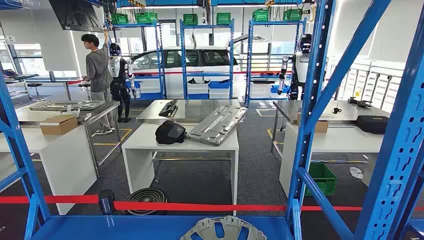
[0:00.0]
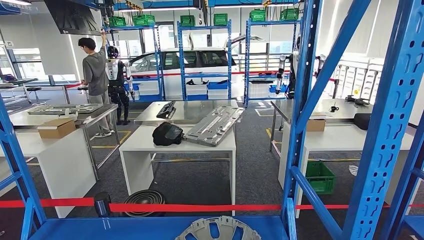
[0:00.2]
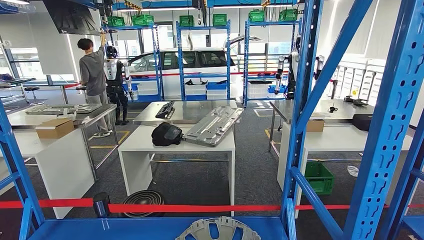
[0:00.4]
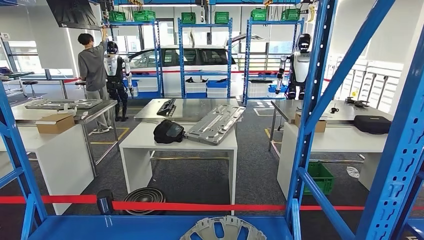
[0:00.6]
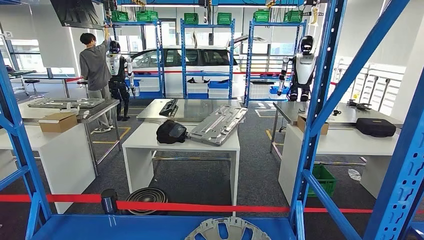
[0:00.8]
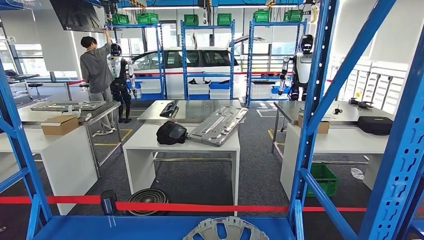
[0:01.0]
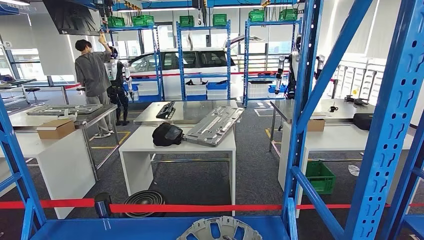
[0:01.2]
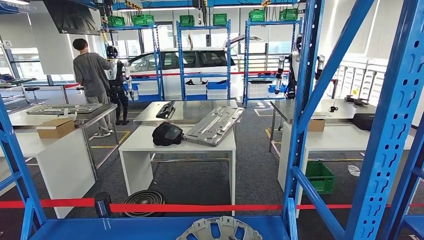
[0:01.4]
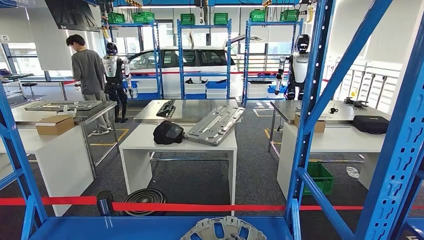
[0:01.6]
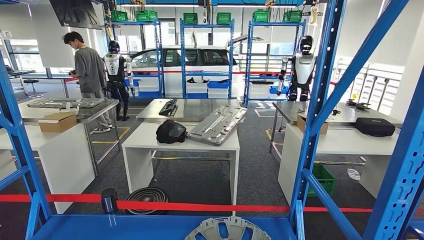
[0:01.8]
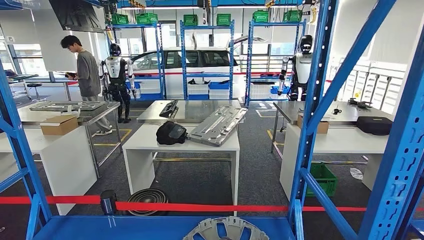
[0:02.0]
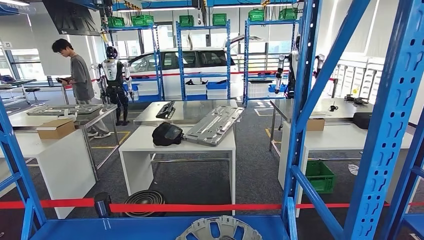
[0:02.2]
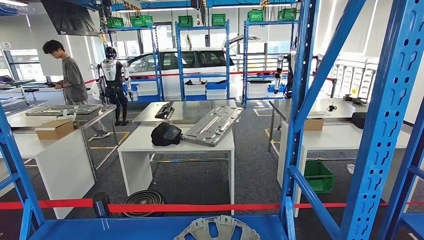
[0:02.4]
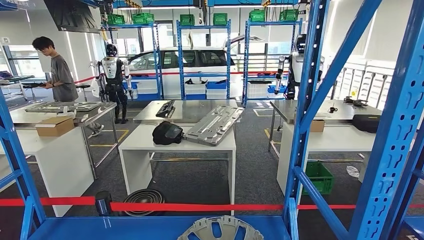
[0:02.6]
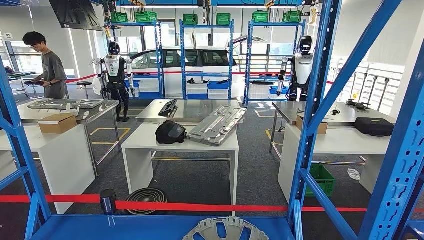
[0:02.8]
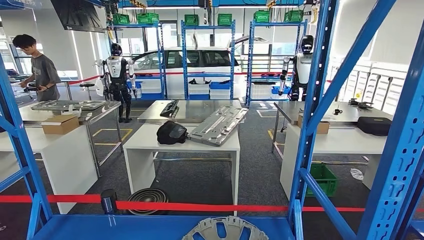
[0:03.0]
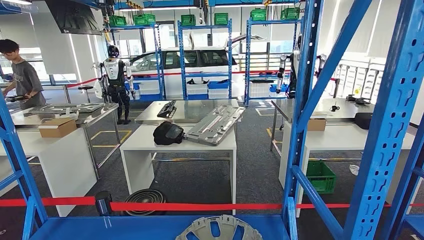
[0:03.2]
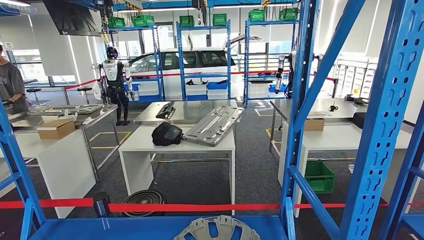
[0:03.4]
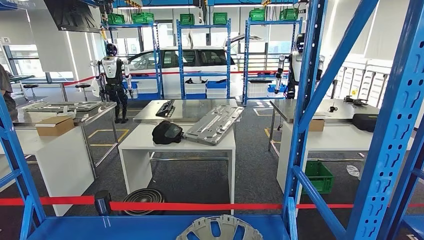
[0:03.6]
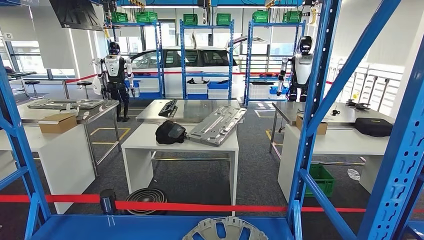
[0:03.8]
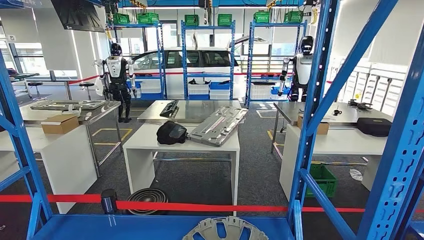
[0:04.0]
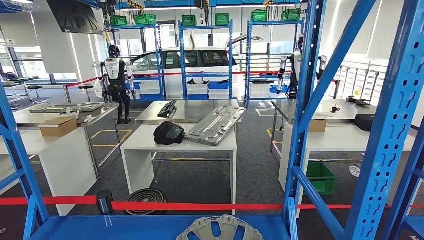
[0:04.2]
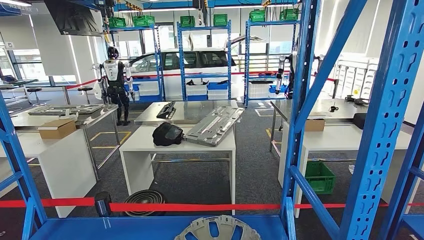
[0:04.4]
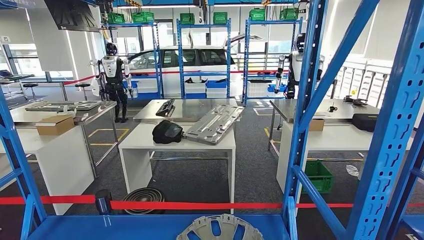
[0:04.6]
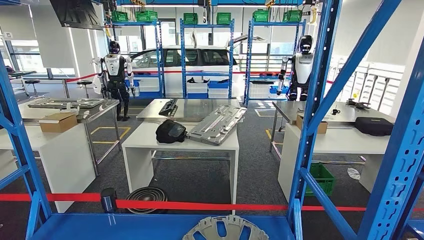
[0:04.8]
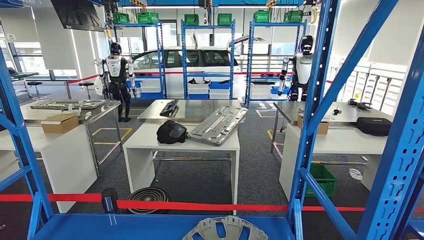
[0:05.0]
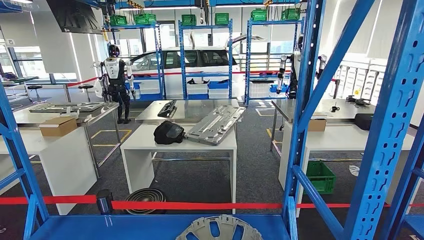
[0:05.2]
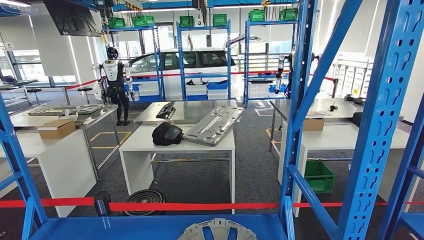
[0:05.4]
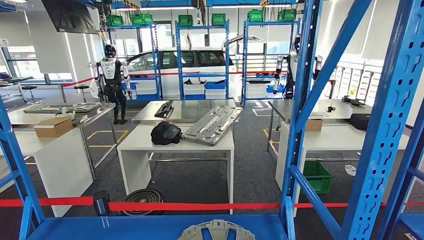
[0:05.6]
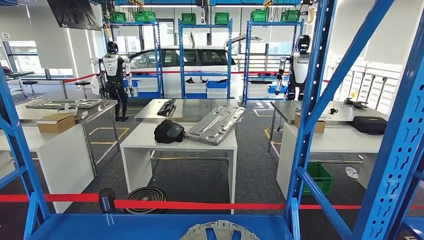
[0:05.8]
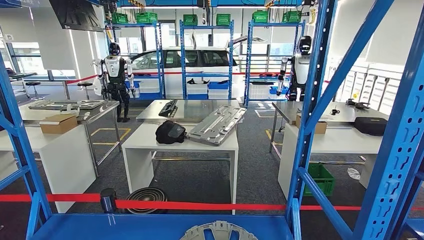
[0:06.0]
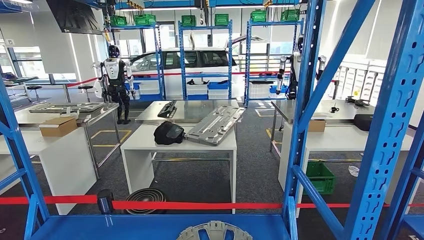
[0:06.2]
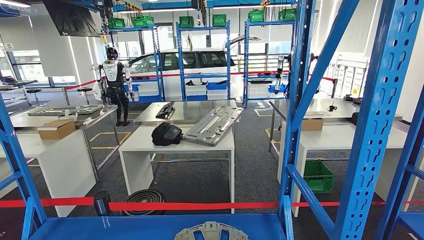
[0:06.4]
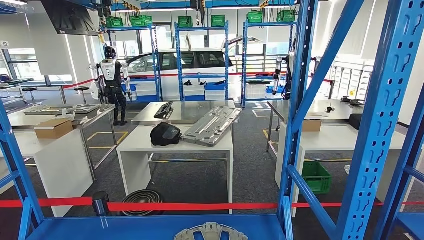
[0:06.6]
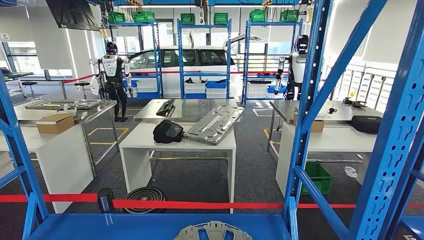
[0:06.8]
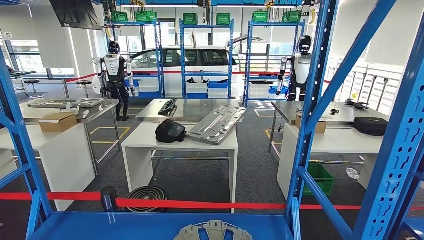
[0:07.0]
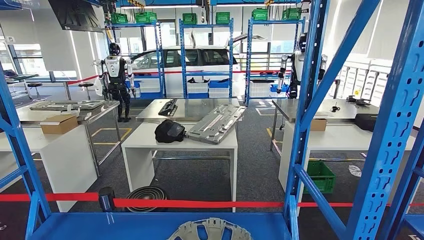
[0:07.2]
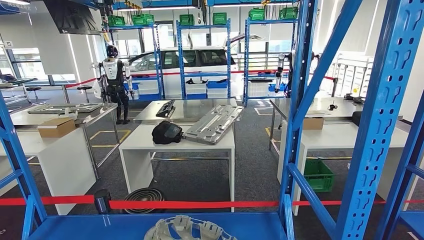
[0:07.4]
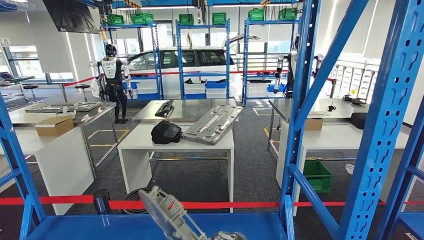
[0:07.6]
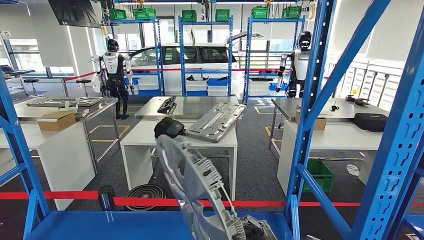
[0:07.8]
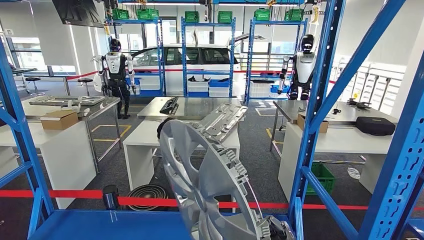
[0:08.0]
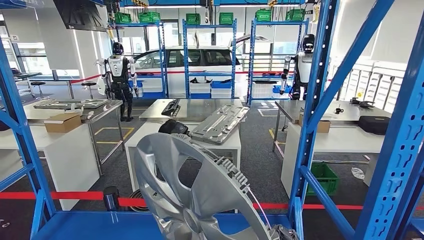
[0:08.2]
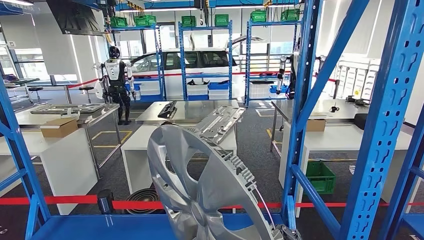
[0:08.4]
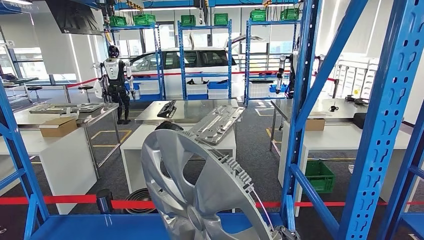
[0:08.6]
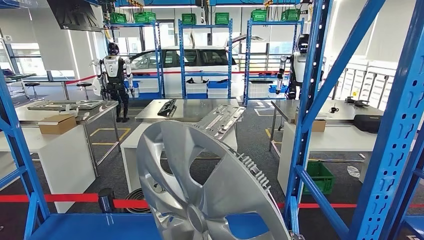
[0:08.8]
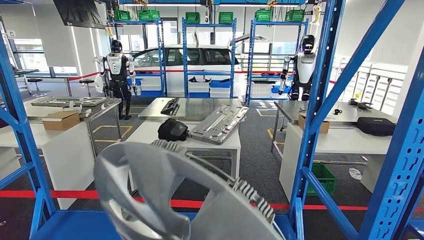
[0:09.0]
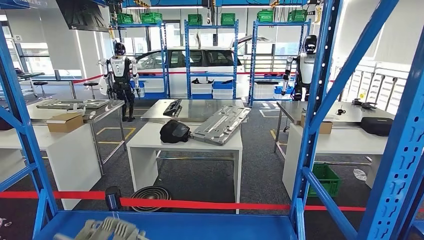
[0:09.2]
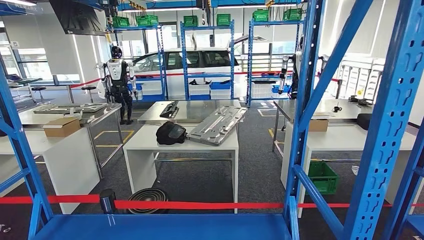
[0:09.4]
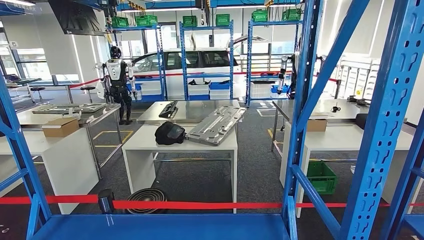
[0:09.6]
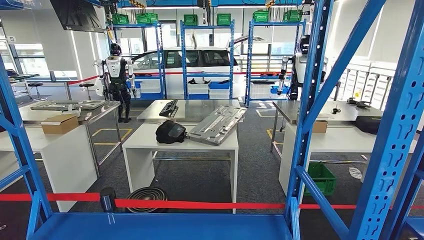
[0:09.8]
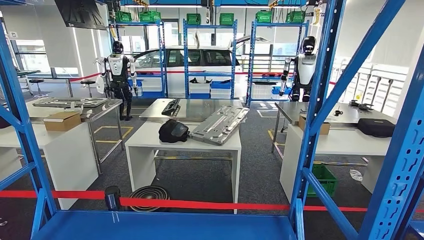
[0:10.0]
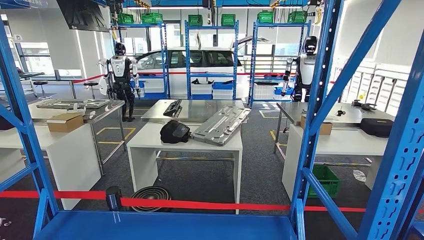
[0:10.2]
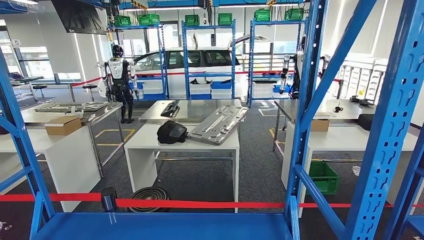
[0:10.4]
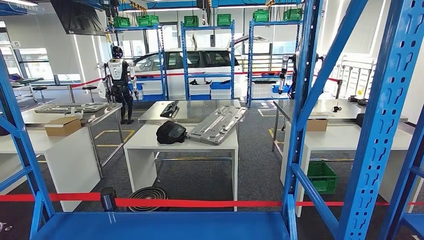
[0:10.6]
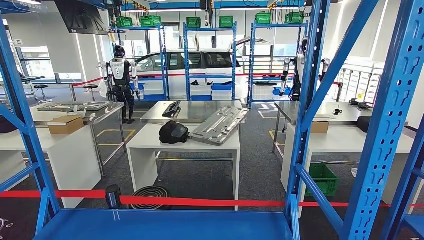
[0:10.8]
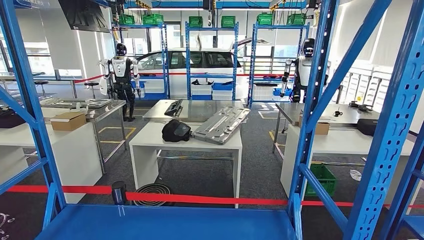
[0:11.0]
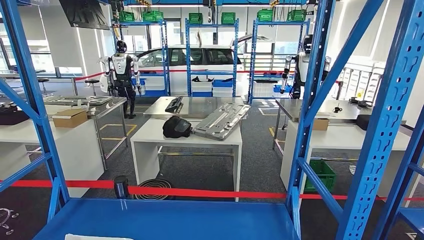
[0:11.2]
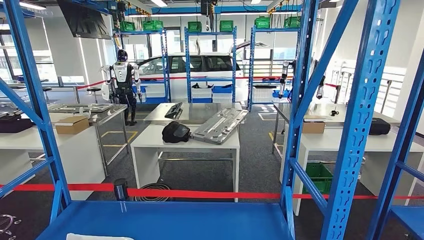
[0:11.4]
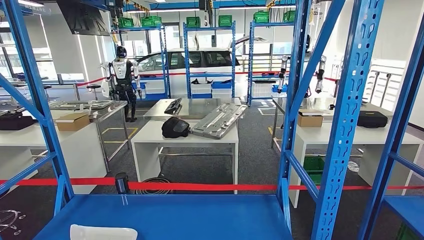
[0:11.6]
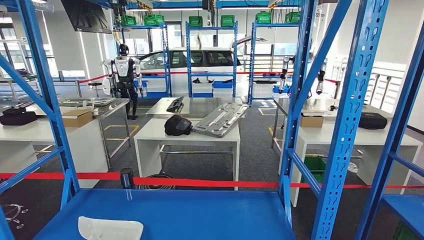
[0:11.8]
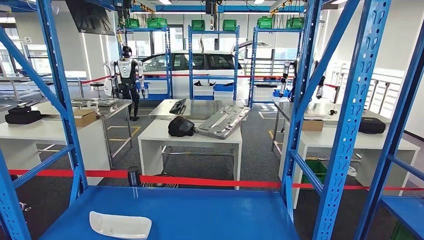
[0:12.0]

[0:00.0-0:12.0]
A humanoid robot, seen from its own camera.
Step, 0:00.0 to 0:07.6: Pick up the small component from the shelf.

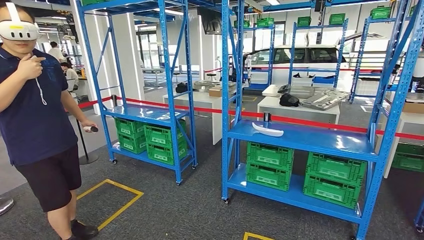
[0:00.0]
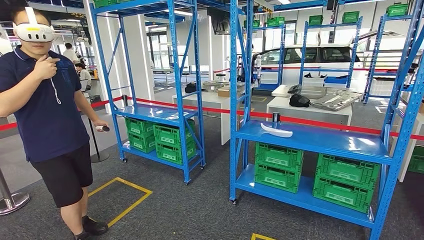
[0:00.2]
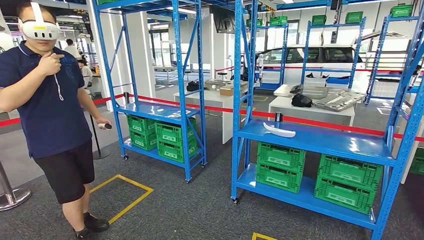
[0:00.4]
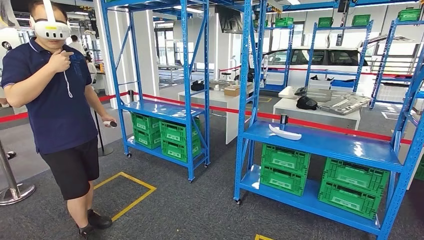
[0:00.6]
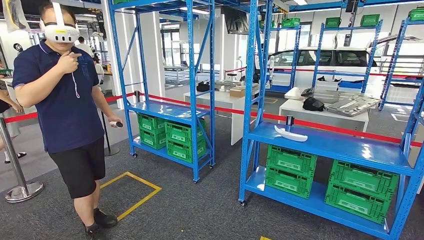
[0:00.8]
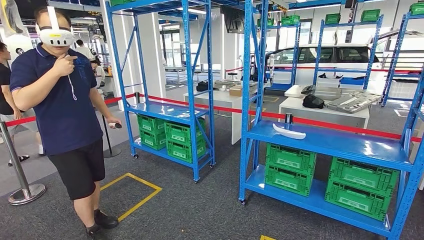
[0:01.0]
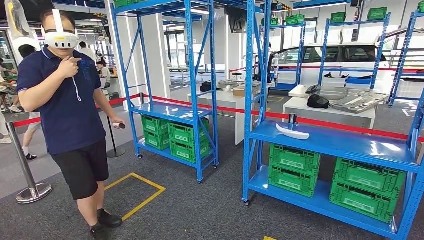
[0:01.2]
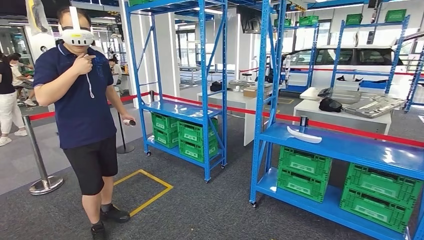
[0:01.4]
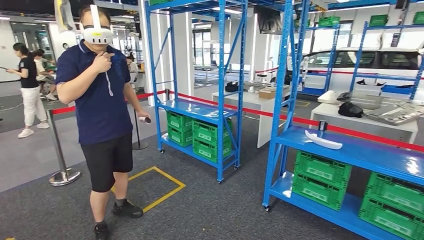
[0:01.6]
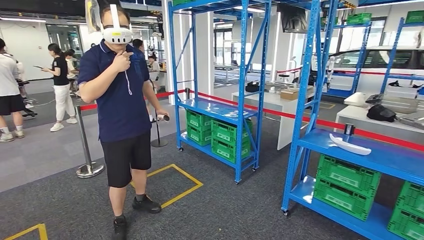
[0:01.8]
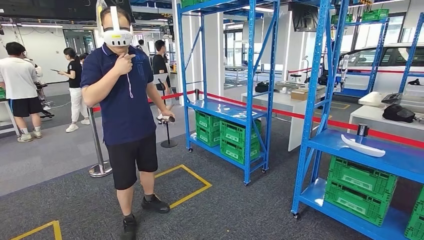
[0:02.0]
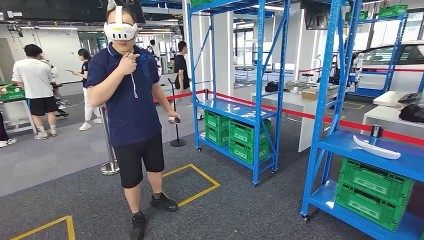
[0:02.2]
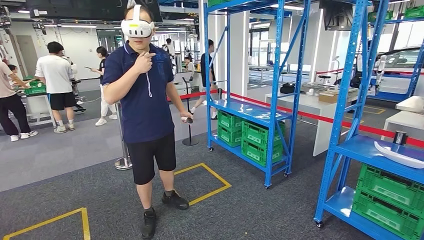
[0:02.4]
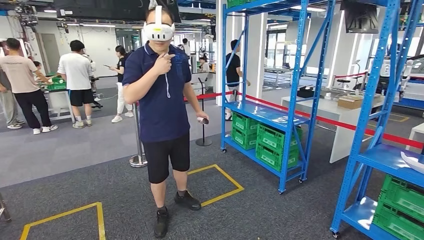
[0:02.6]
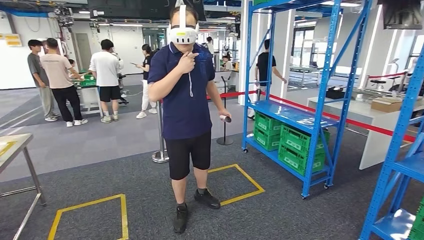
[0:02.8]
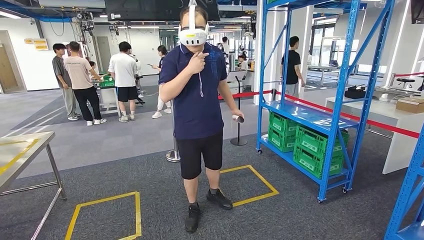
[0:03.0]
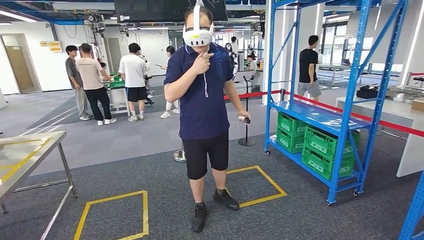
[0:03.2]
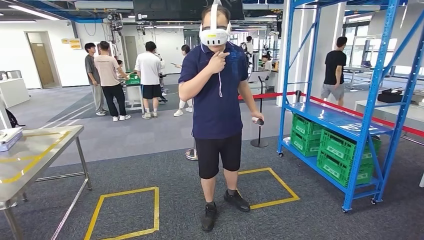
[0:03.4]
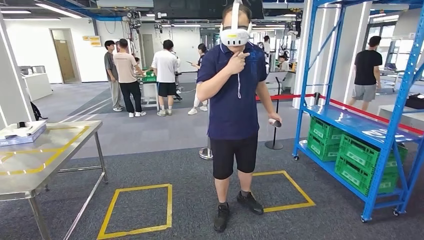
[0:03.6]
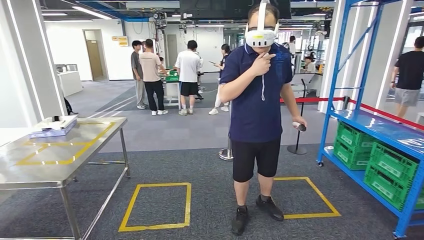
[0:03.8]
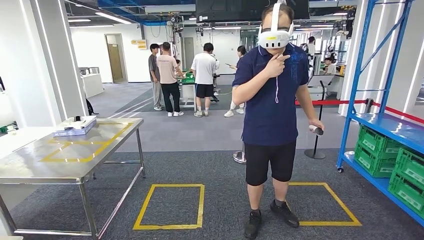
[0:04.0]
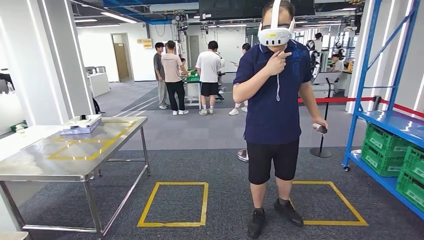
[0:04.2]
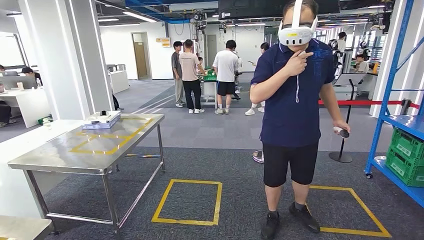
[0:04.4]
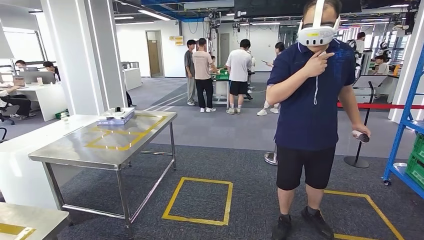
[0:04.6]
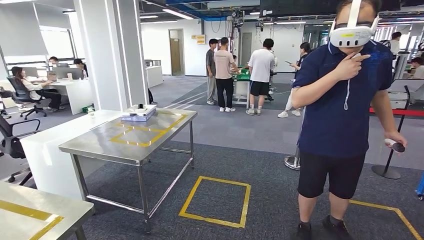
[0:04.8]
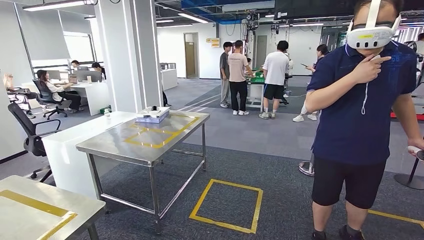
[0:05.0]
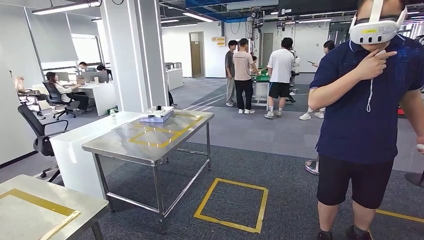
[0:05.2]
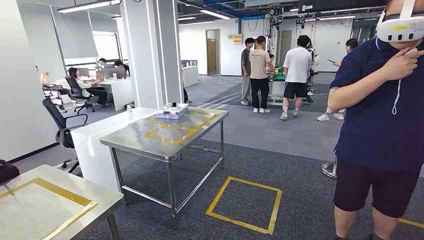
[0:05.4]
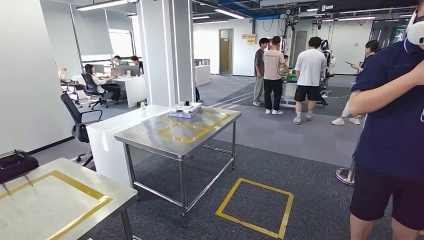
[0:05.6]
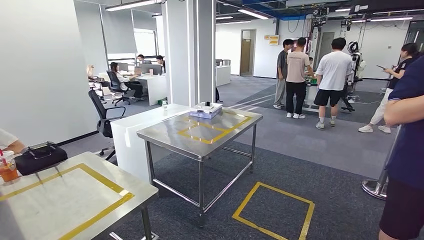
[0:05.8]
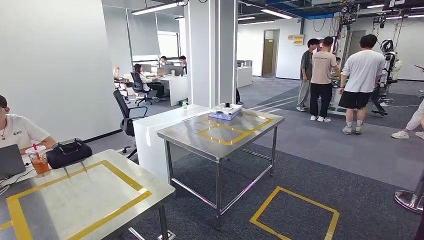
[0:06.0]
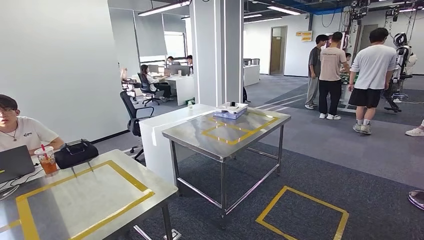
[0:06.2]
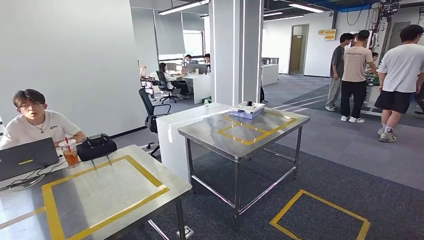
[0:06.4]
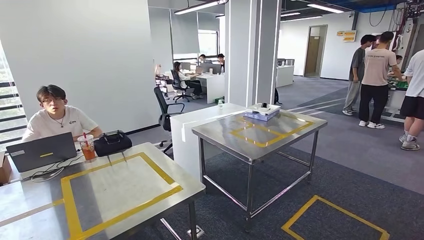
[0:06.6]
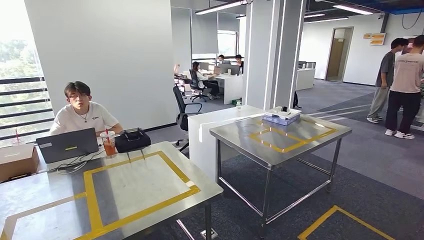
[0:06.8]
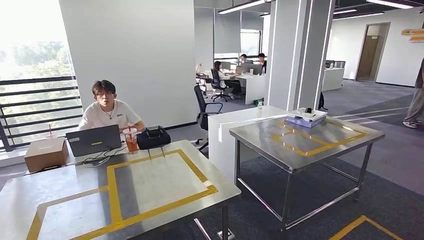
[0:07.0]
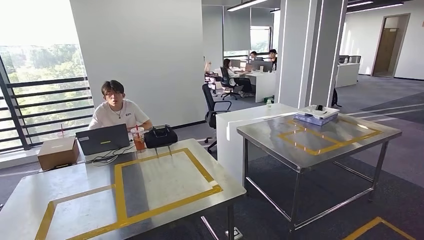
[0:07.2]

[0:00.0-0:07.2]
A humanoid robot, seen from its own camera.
Step, 0:00.0 to 0:06.6: Move the small component to the workbench.
